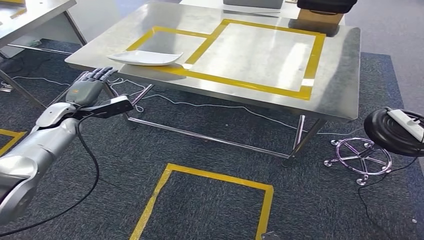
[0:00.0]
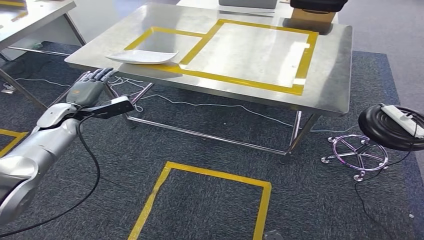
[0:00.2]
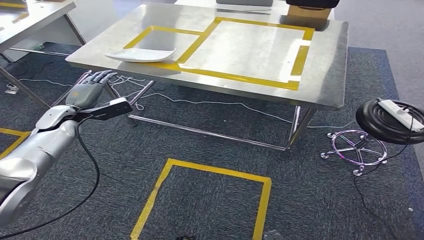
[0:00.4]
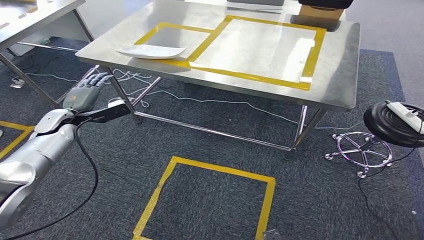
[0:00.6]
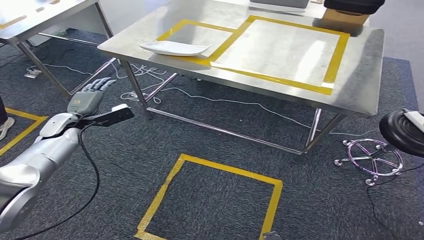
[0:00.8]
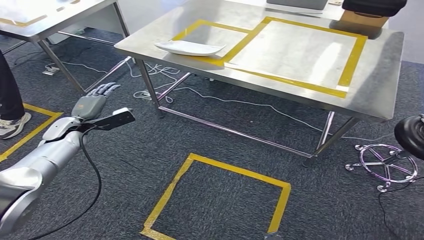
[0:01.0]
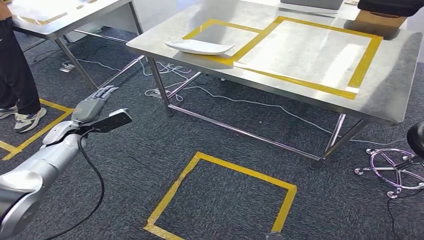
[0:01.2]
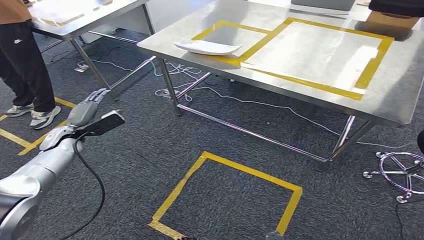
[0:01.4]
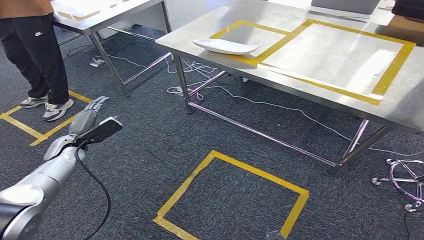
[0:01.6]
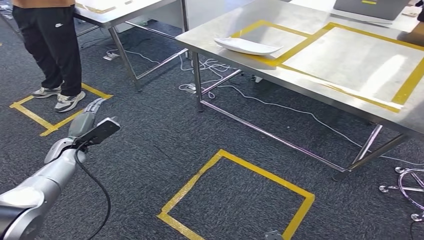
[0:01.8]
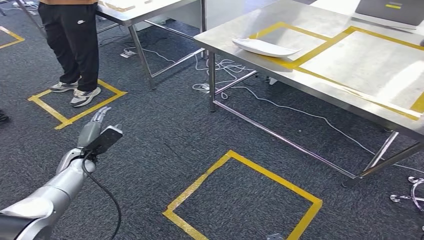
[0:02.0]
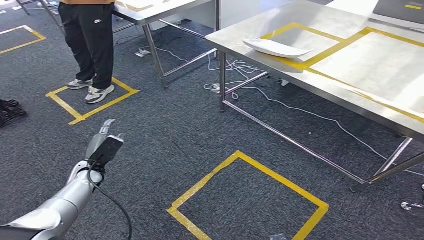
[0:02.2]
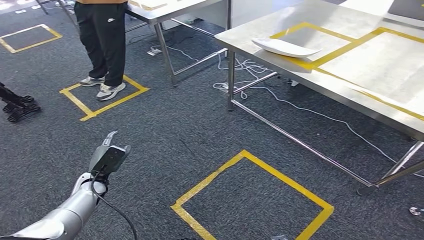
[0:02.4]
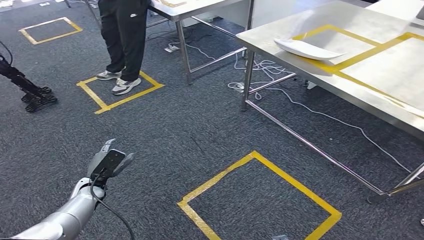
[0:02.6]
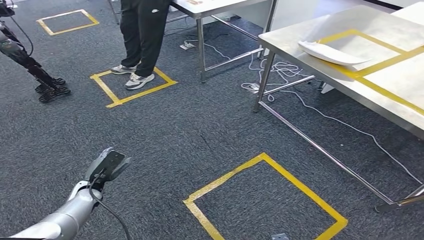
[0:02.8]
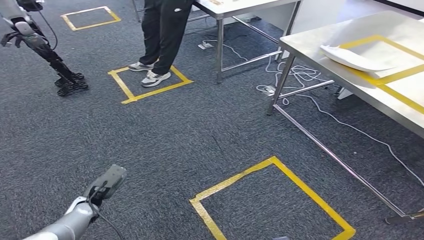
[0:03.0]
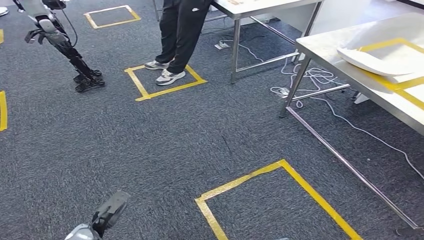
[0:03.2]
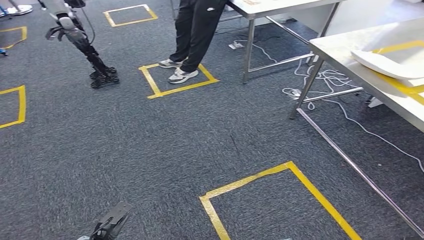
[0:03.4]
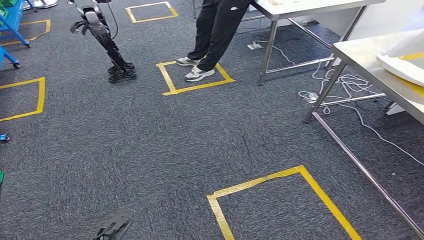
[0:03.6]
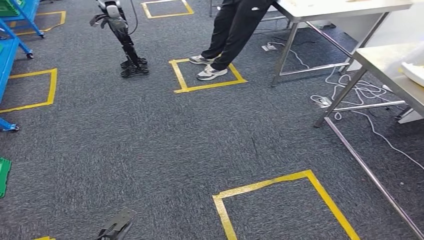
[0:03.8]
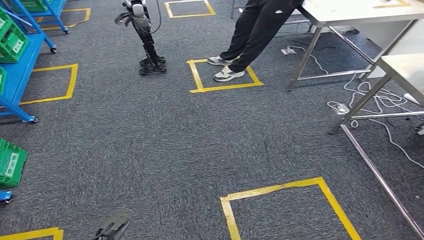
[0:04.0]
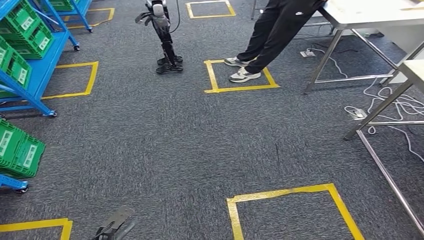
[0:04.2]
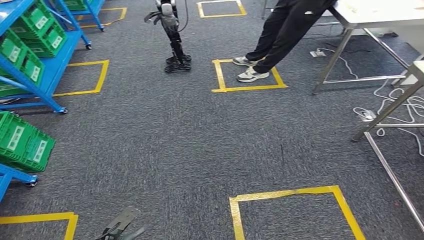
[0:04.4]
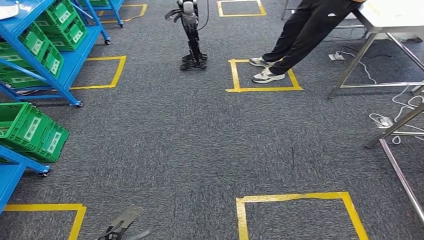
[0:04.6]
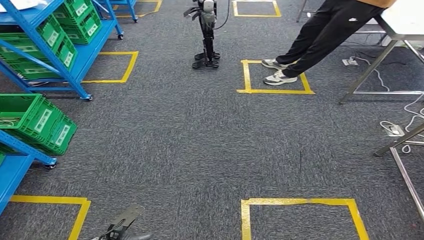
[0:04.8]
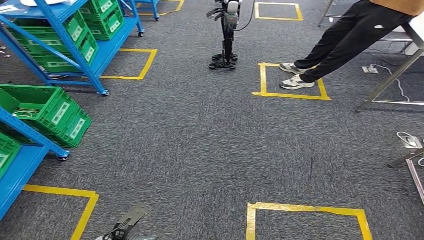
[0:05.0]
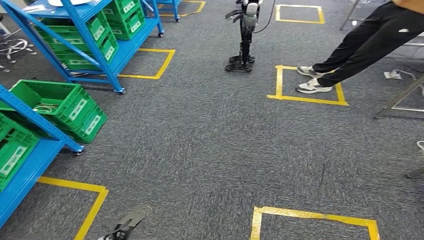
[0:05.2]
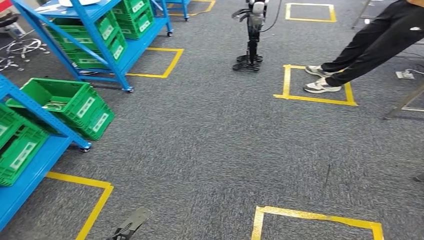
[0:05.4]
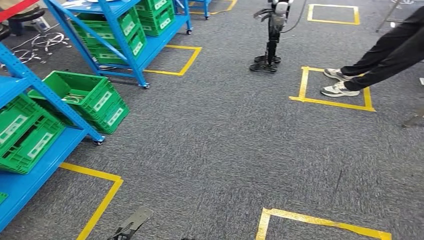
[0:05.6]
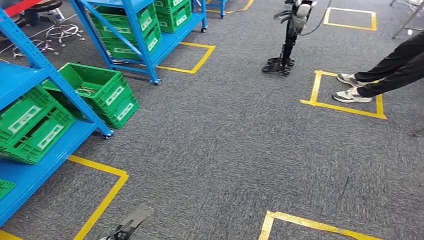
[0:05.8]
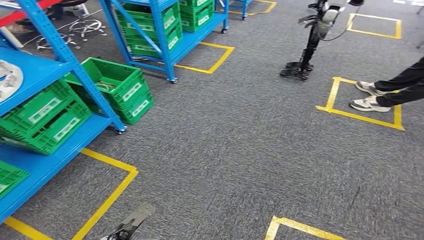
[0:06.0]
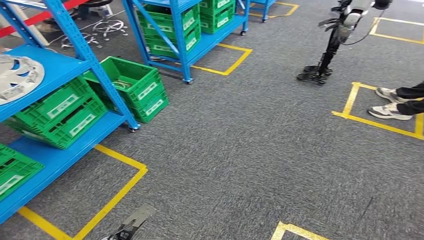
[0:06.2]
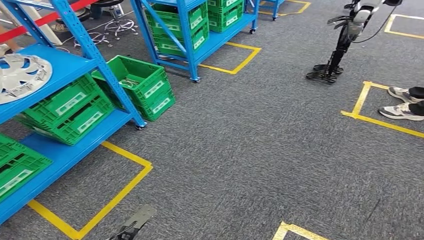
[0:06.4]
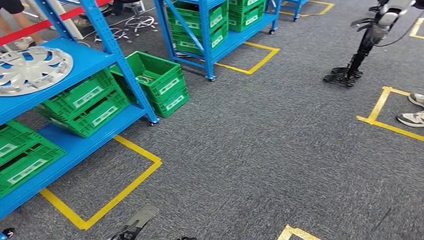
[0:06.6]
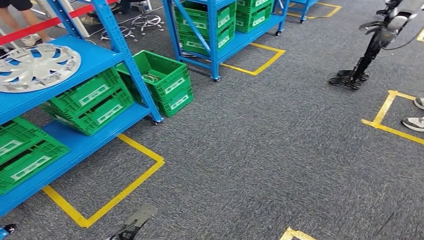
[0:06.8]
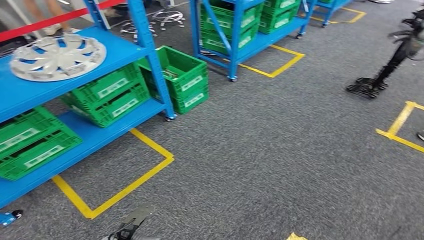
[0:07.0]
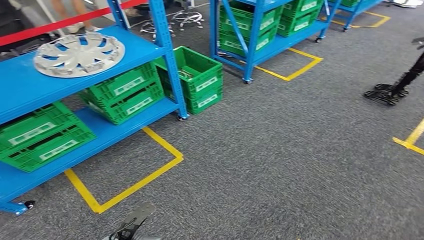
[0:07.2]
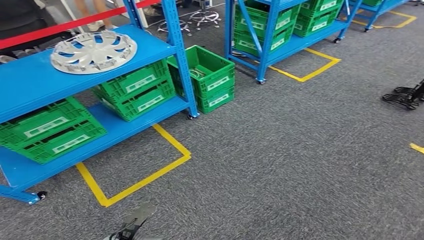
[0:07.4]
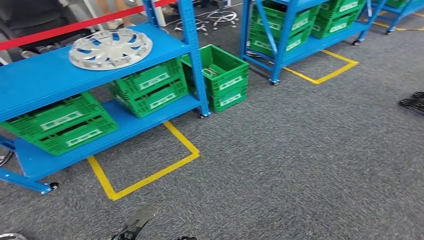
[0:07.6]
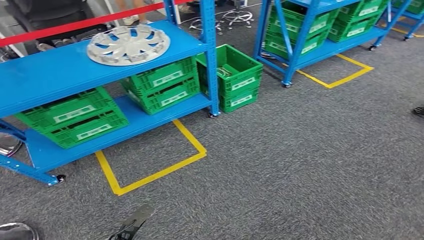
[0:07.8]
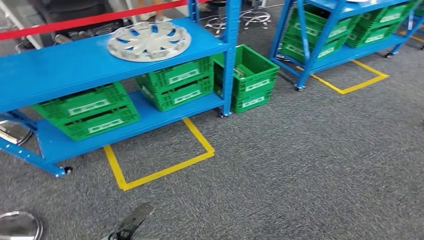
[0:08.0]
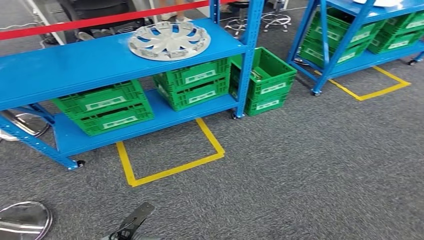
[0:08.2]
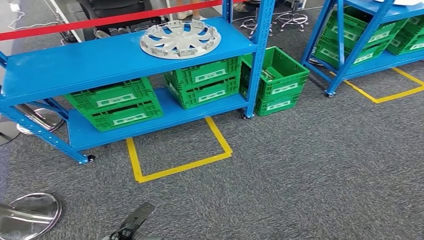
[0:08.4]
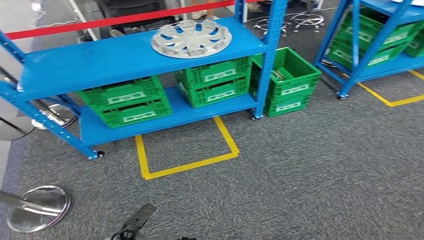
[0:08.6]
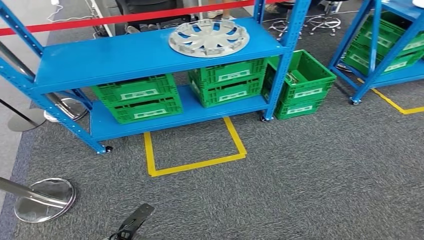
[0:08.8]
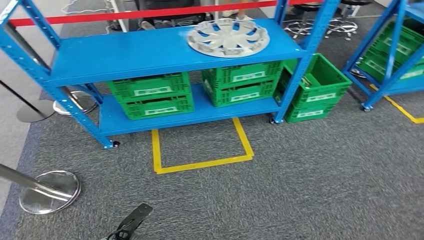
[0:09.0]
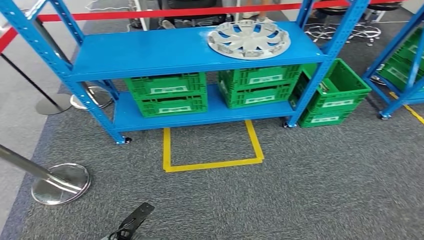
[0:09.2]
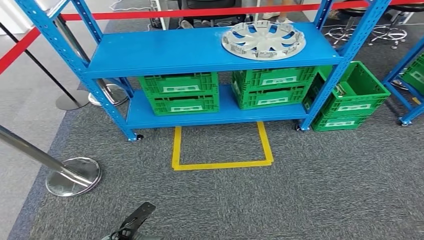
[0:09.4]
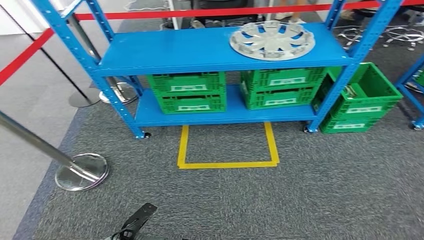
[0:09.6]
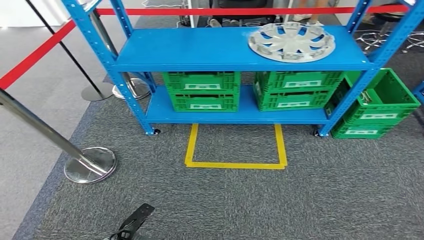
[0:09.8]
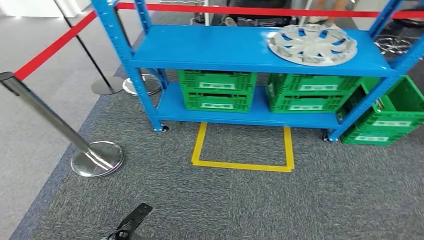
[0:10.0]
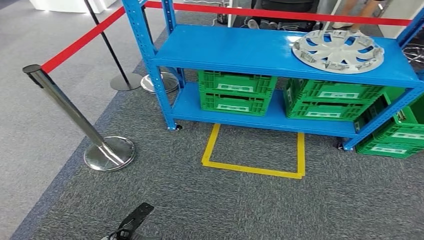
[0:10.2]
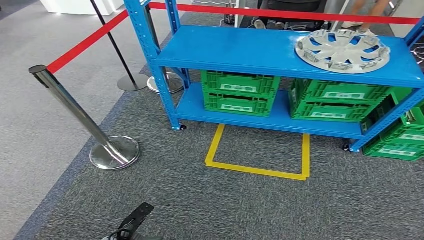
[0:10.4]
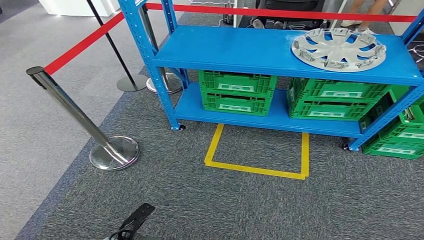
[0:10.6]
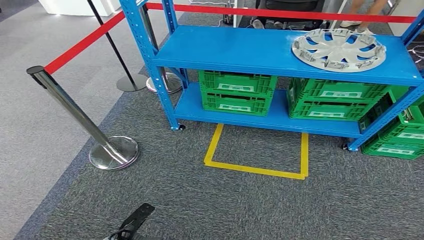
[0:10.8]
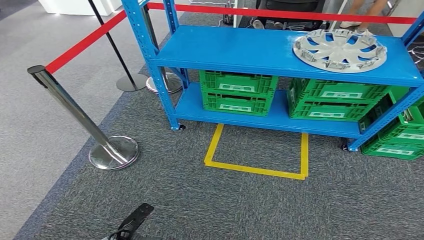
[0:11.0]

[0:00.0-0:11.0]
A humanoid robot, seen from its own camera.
Step, 0:00.0 to 0:11.0: Return to the initial position at the workbench.
